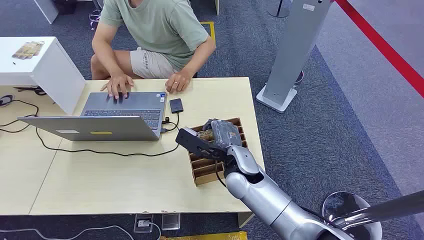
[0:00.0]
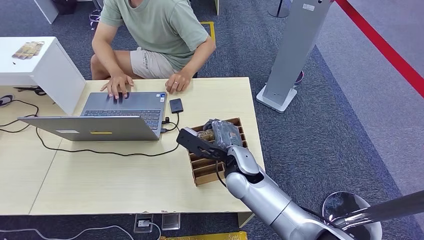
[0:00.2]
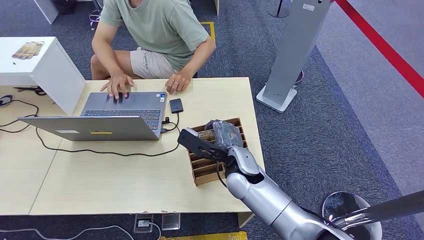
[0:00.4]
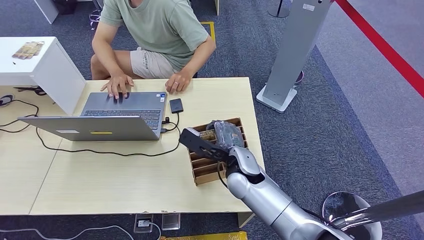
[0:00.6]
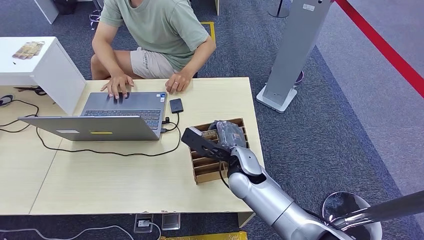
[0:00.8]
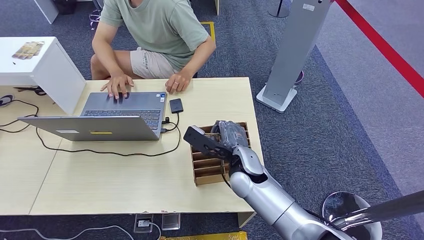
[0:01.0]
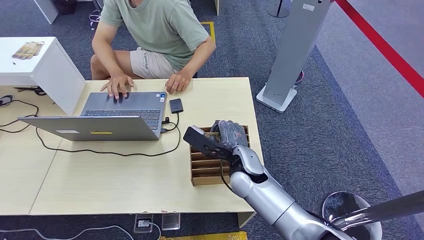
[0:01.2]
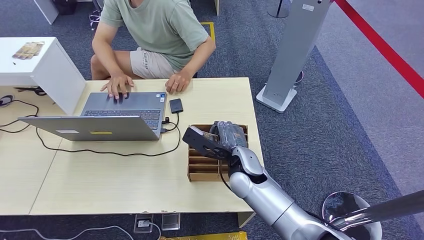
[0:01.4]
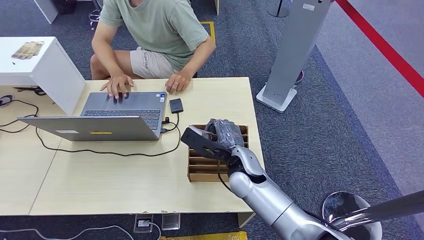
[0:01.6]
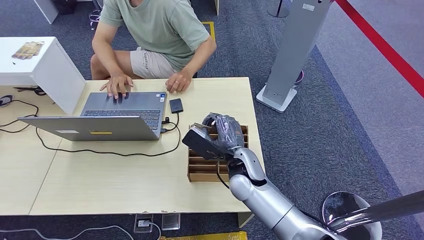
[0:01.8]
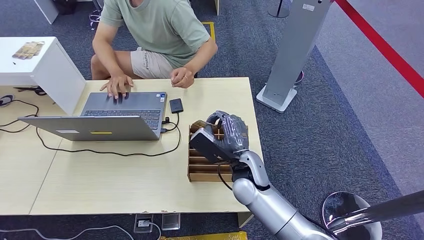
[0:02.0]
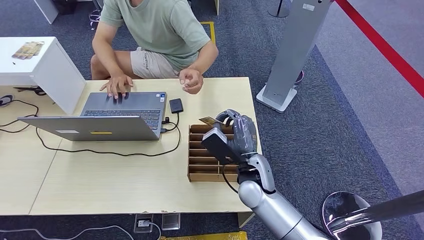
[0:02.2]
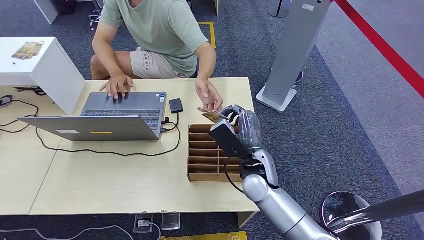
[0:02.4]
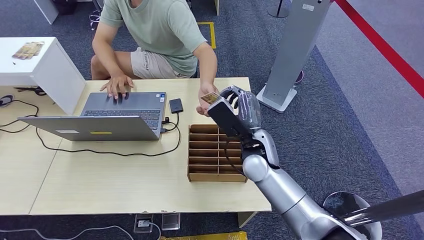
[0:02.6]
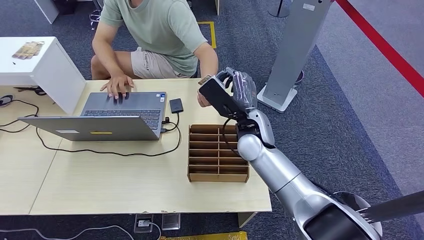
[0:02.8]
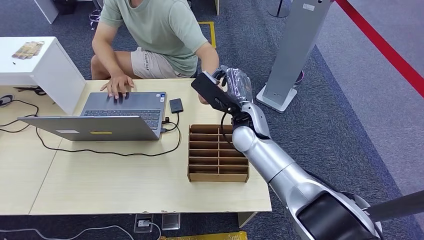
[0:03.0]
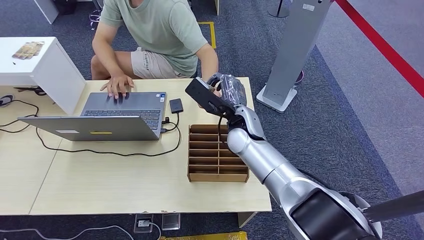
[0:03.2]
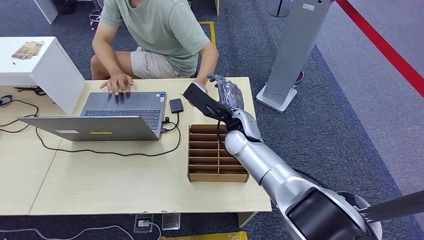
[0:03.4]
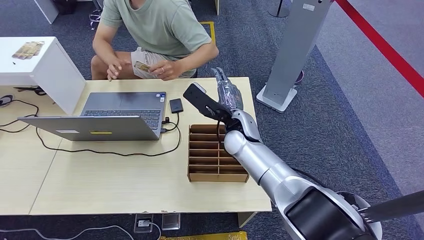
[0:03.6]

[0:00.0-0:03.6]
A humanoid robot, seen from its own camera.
Task of the whole recording: Pick up the card and hand it over to the target person.
Step, 0:00.0 to 0:02.0: Pick up the key card from the card box.
Step, 0:02.6 to 0:03.6: Hand the key card to the target.
0:01.8 to 0:03.6: The right hand travels forward by some 10 cm.

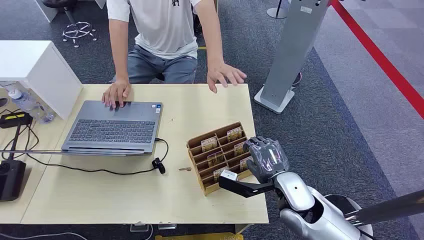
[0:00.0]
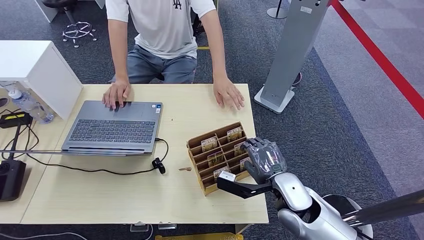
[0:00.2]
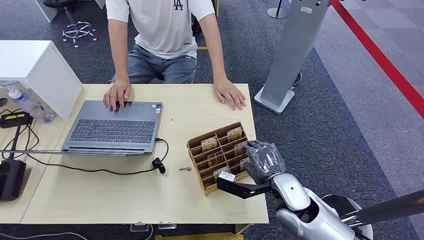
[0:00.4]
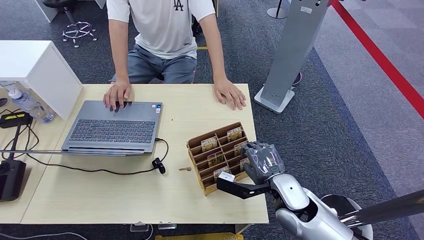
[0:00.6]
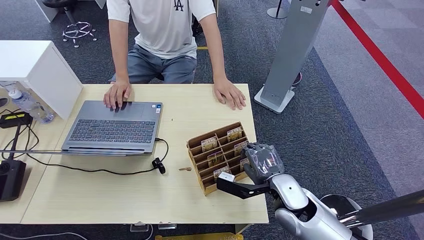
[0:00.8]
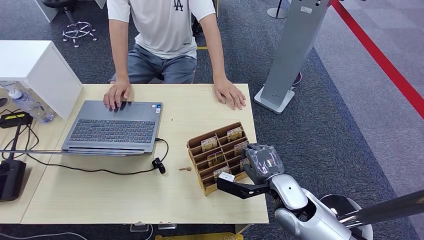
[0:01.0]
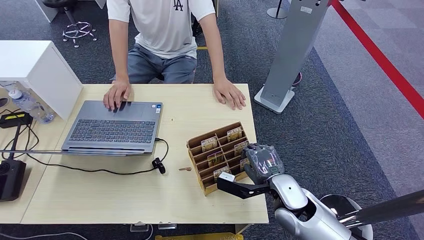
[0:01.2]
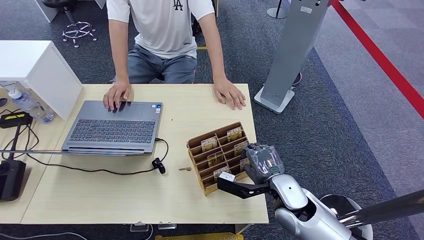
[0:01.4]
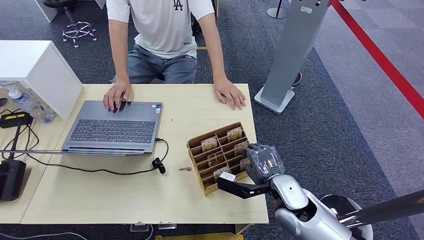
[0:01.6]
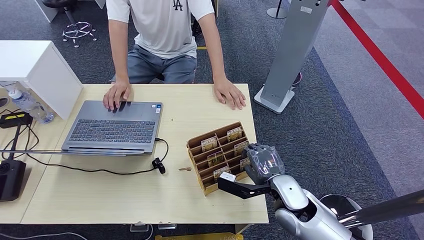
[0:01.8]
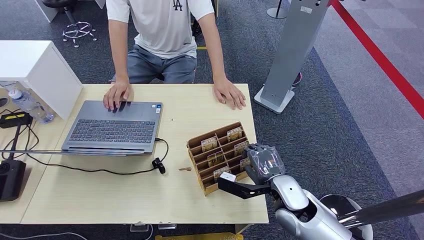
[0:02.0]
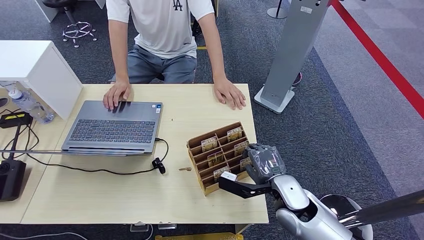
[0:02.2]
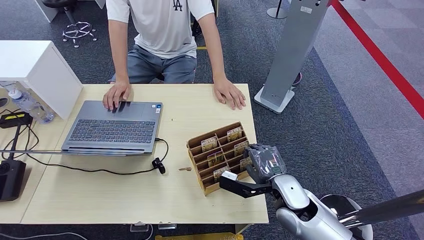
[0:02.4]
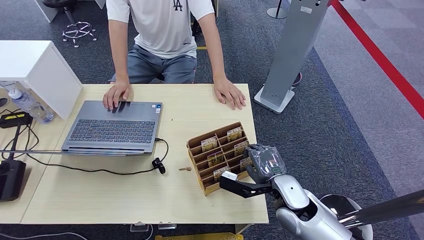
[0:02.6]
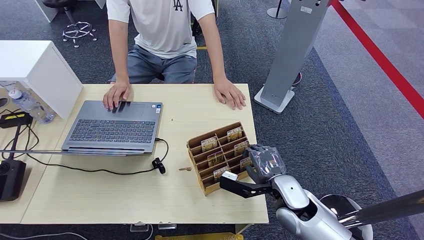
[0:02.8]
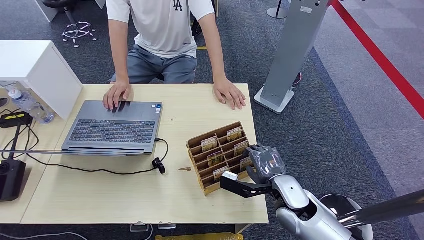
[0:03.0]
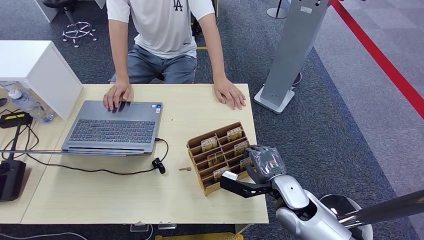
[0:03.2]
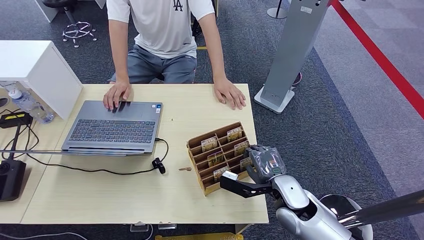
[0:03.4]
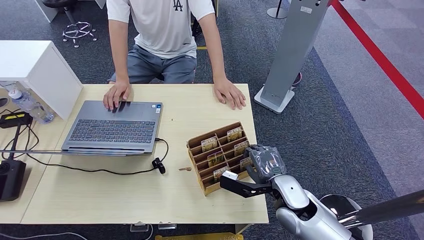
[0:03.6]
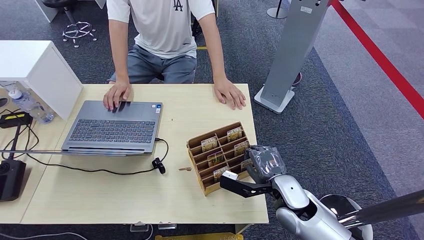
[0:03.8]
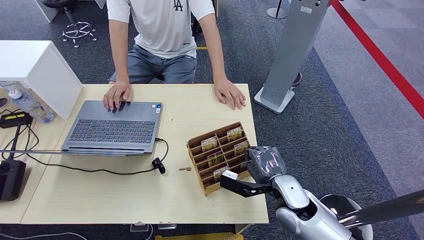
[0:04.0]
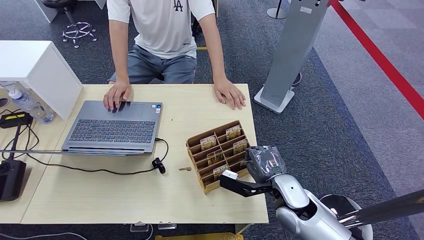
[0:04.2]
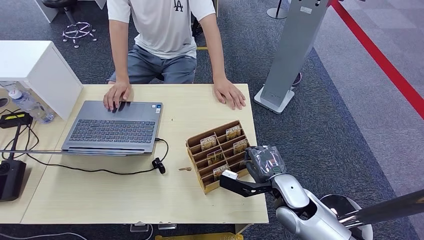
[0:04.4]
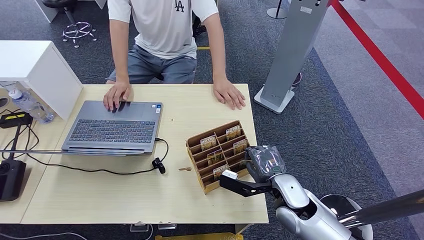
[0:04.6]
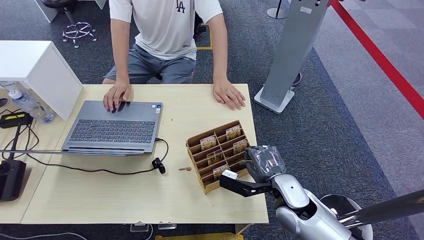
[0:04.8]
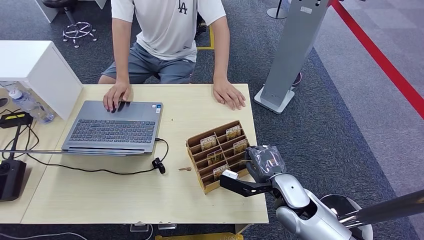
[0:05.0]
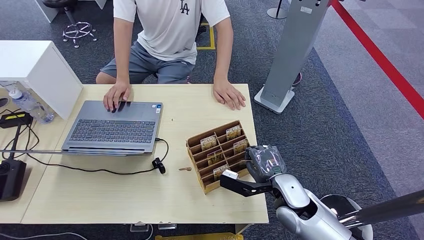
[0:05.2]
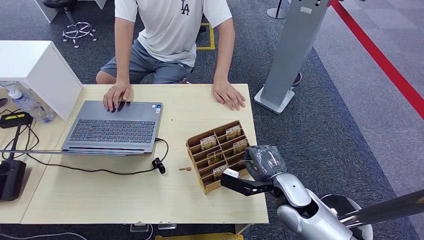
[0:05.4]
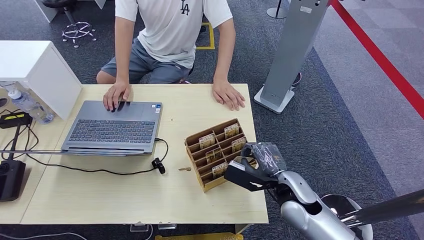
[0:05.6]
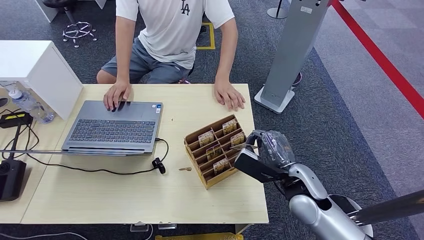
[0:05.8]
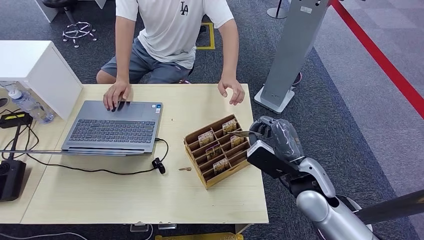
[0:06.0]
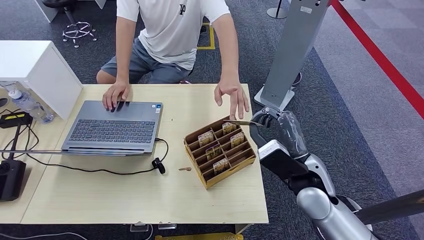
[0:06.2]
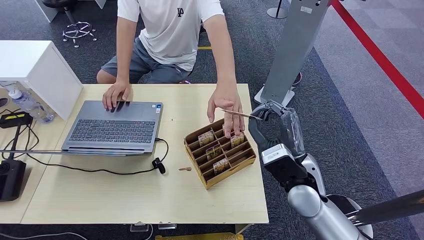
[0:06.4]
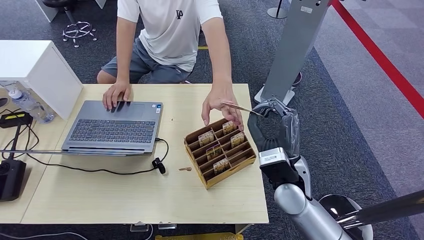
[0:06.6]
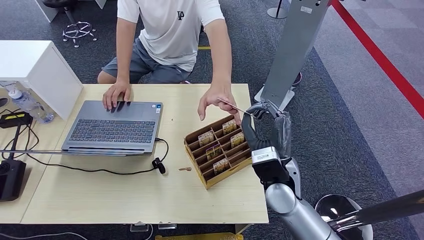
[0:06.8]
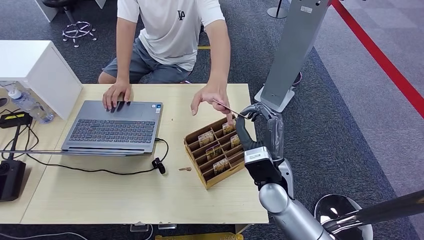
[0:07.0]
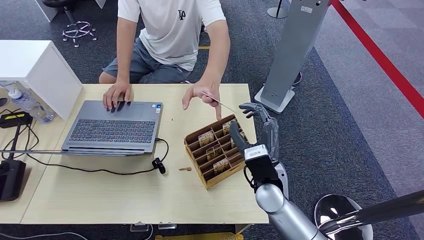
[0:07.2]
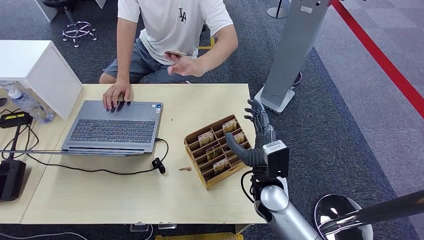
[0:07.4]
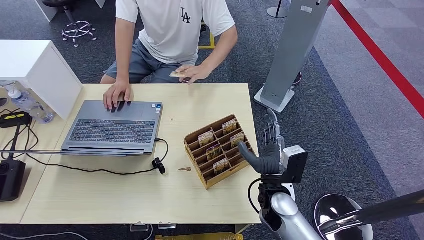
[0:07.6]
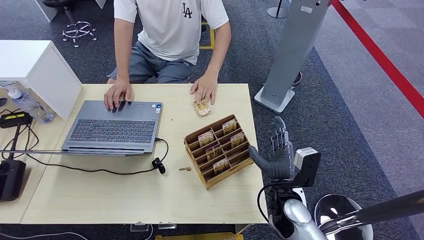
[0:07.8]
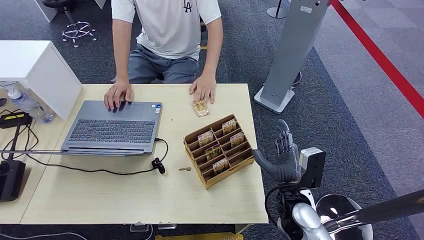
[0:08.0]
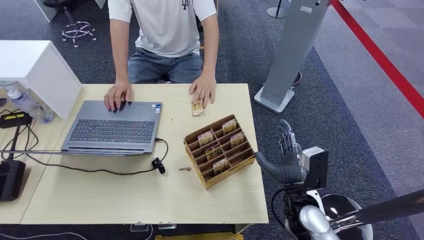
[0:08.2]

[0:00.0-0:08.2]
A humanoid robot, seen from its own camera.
Task of the whole recording: Pick up the card and hand it over to the target person.
Step, 0:00.0 to 0:06.2: Pick up the key card from the card box.
Step, 0:06.4 to 0:08.0: Hand the key card to the target.
0:01.6 to 0:03.2: Both hands stay about where they are.
0:03.2 to 0:05.0: The hands move only a little.
0:05.0 to 0:06.6: The right hand moves to the left and upward, some 10 cm.
0:06.6 to 0:08.2: The right hand shifts some 10 cm to the right and backward.
